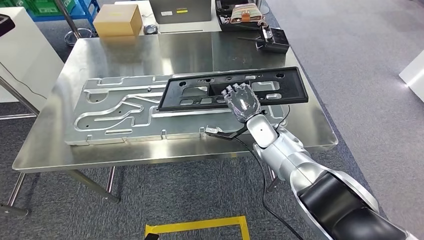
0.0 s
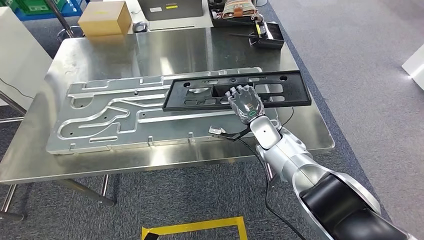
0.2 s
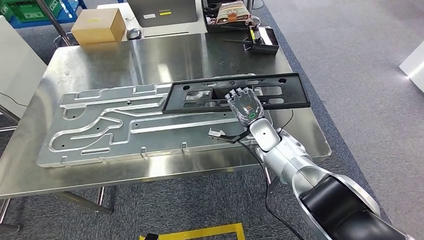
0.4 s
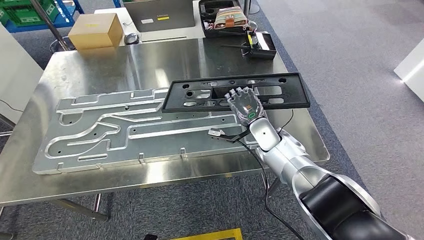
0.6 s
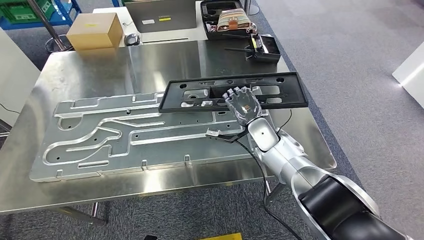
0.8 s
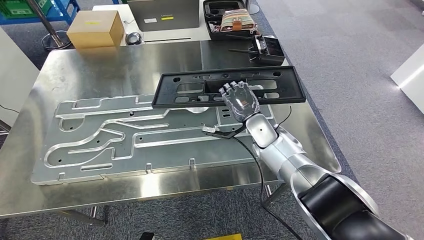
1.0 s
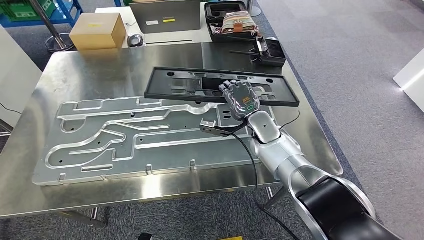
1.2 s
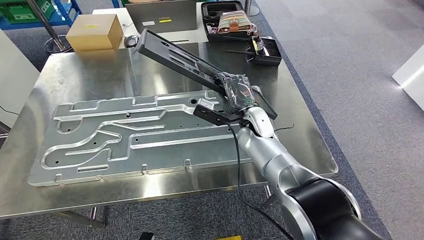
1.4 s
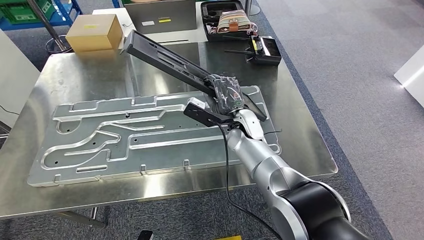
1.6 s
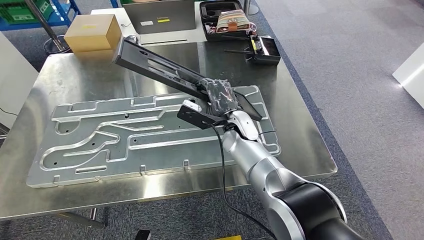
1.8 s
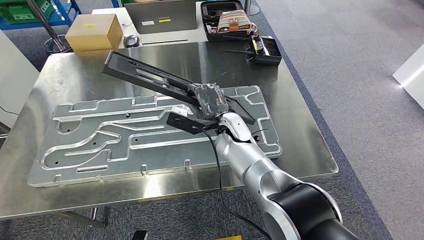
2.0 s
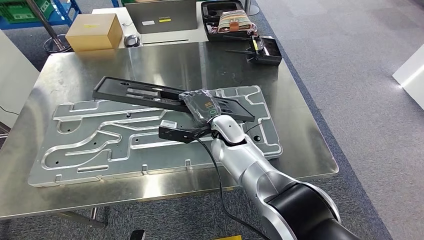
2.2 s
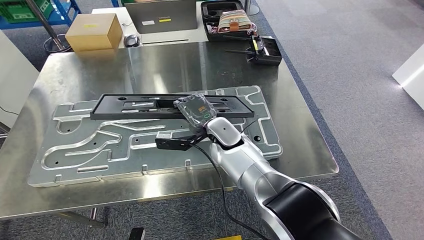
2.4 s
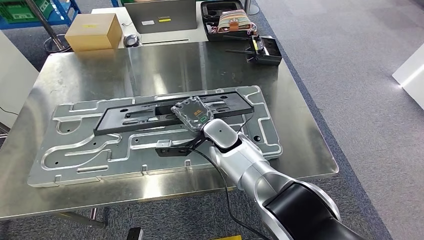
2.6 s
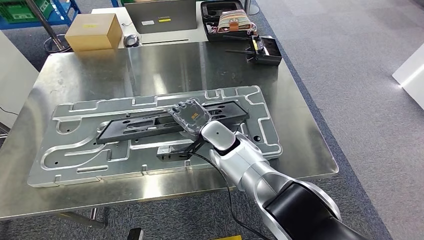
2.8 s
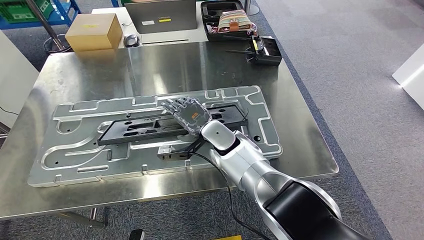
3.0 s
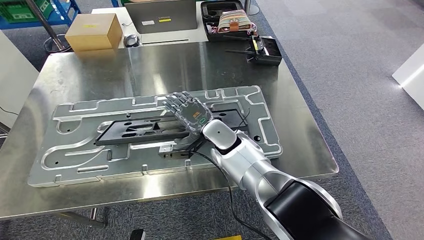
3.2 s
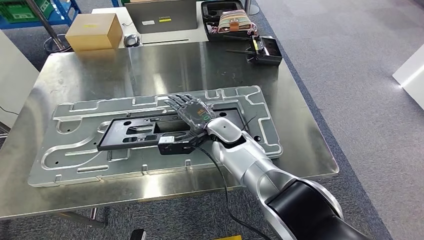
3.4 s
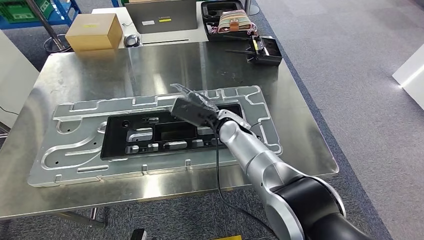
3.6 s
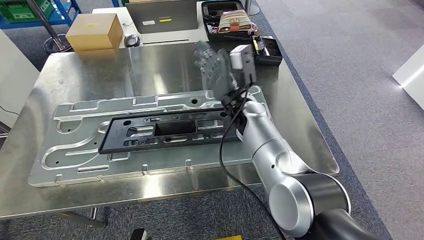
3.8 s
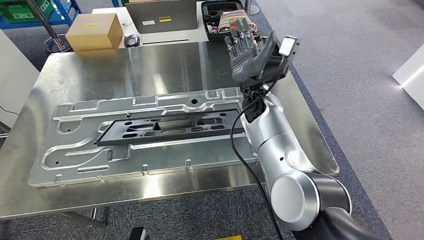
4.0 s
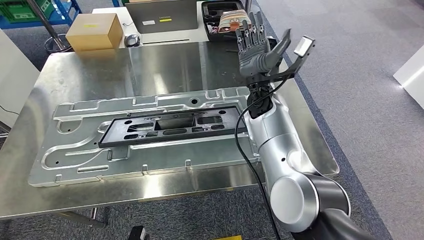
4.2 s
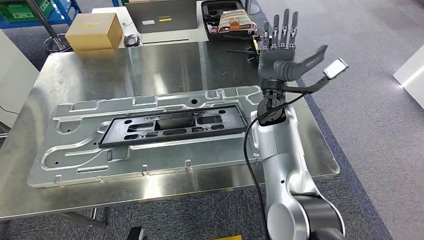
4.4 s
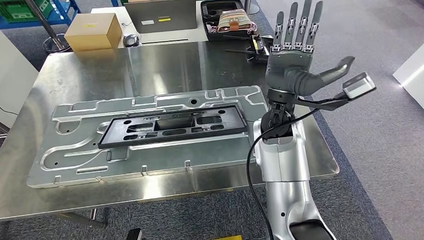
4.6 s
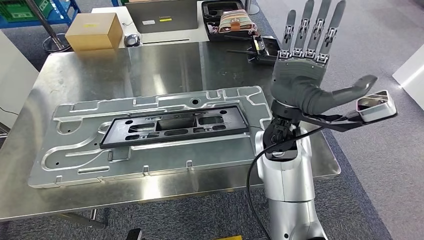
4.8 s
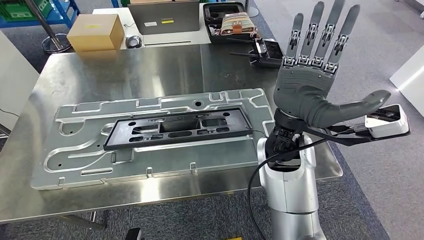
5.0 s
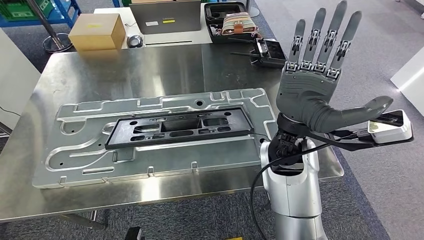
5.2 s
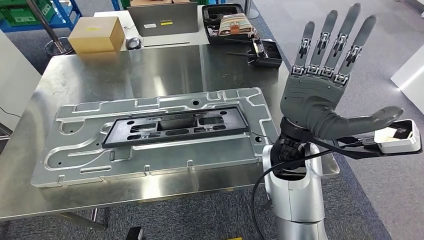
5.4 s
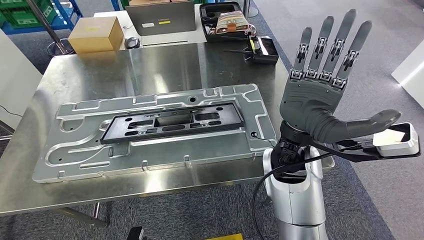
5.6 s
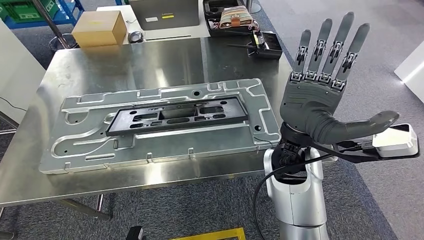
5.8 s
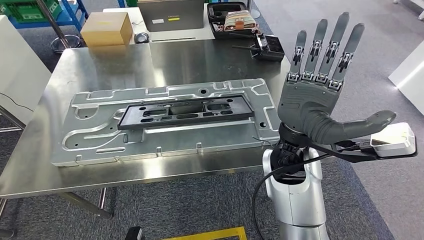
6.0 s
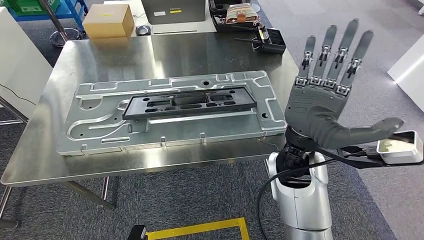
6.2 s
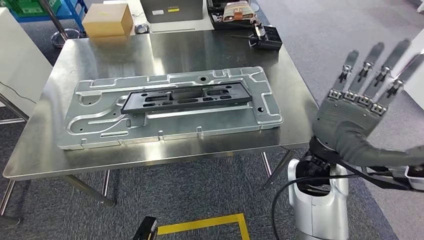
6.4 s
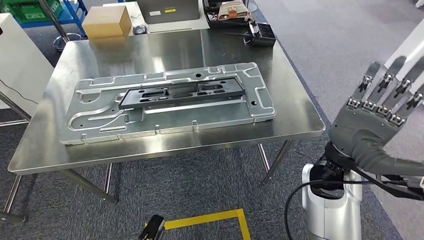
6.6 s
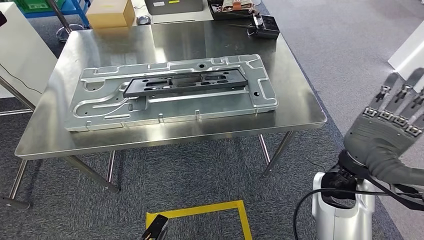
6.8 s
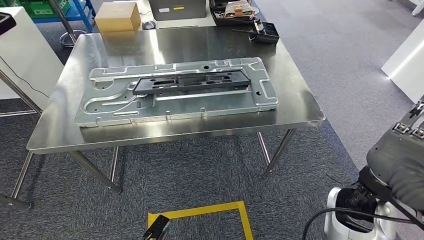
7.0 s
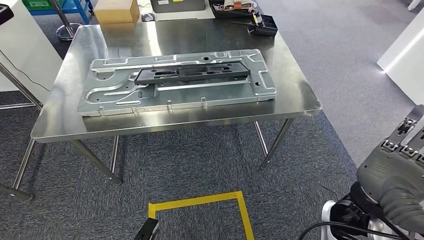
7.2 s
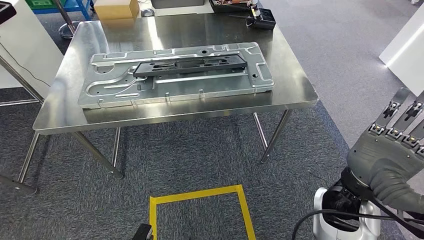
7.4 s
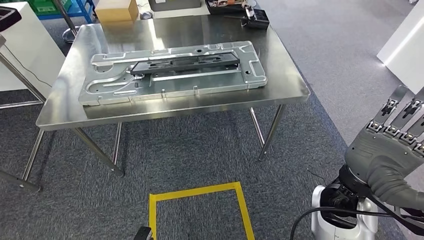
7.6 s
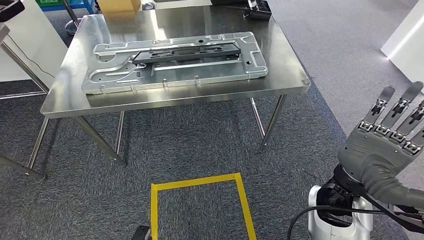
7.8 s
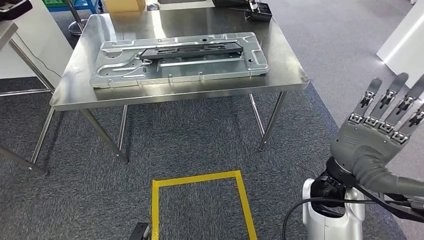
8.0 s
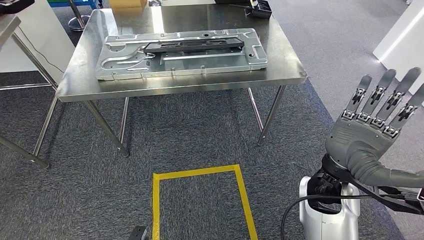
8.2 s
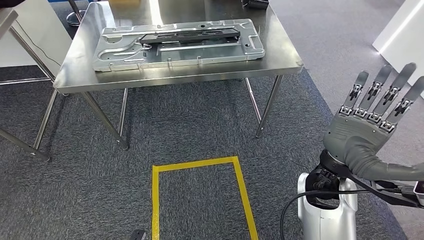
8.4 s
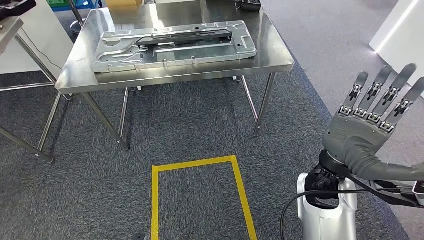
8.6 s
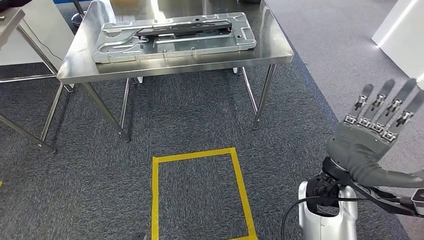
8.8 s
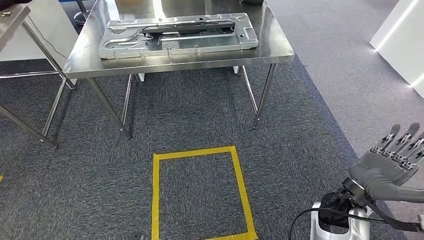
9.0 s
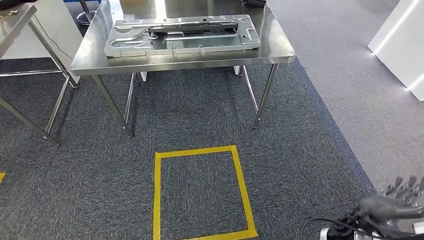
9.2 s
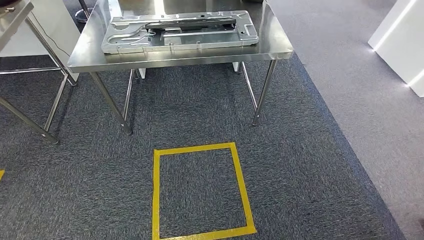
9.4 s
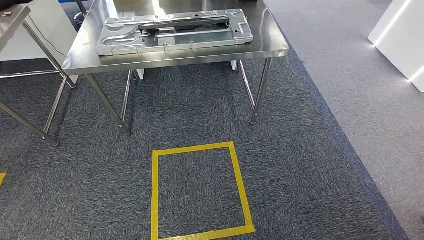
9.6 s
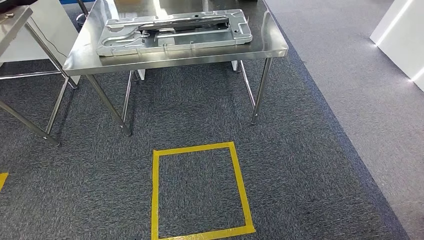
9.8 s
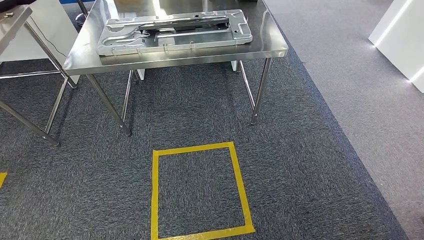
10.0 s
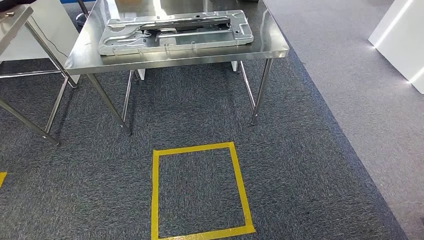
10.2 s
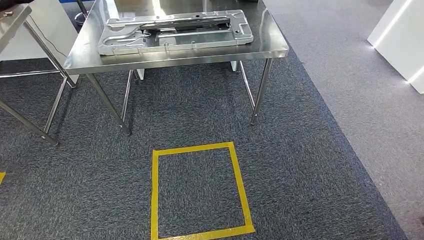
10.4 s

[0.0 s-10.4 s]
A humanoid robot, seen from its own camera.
Step, 0.0 to 4.0 s: Insert the large material into the corresponding slot on the workbench.
Step, 7.4 to 10.4 s: Return to the initial position at the shelf.
1.4 to 3.0 s: The right hand moves to the left, some 10 cm.
3.0 to 4.4 s: The right hand heads to the right and upward, covering roughly 15 cm.
9.0 to 10.4 s: The right hand goes roughly 35 cm downward and backward.
